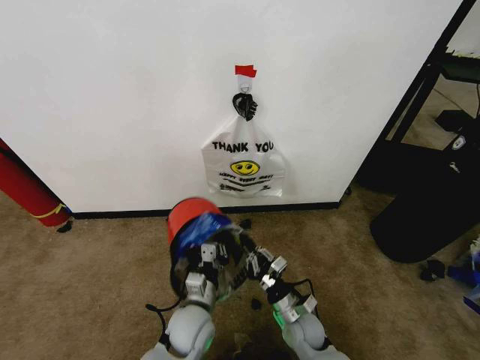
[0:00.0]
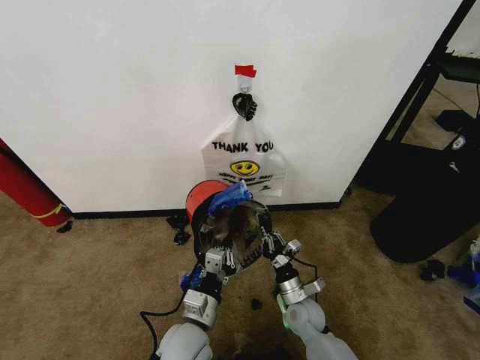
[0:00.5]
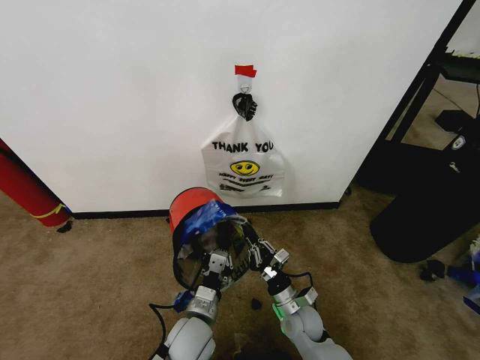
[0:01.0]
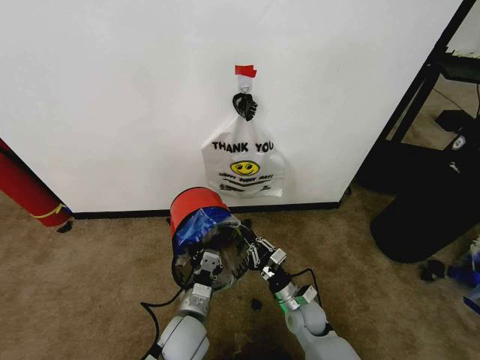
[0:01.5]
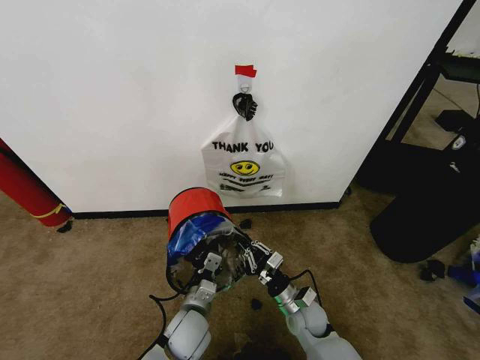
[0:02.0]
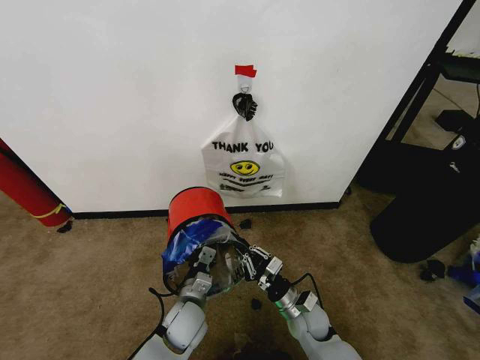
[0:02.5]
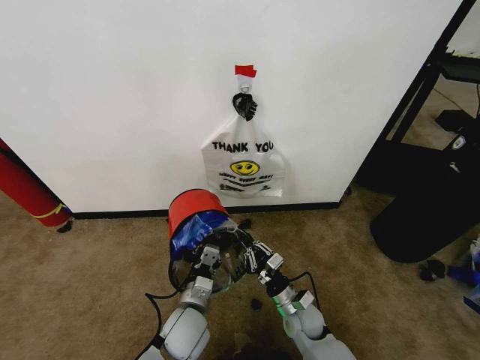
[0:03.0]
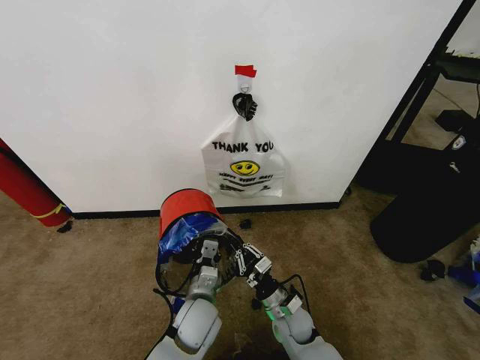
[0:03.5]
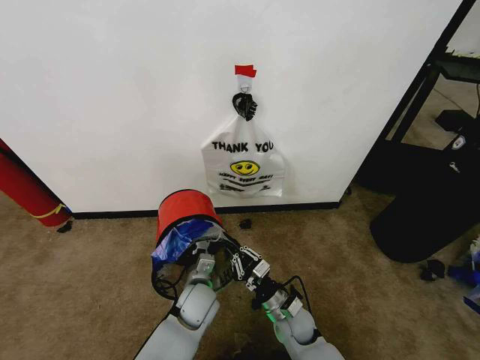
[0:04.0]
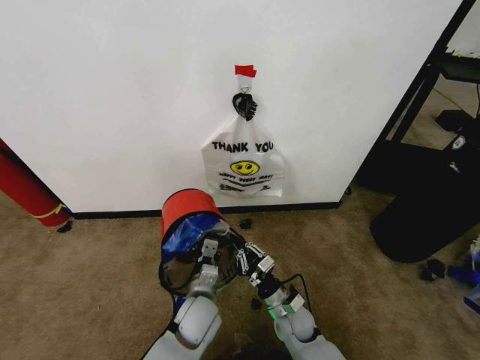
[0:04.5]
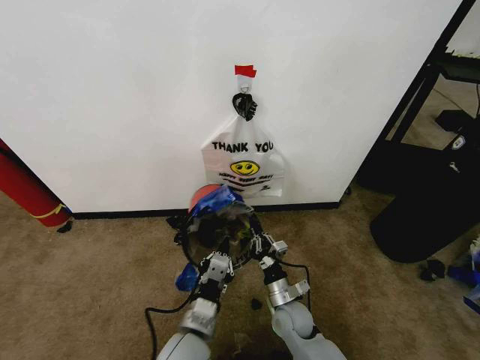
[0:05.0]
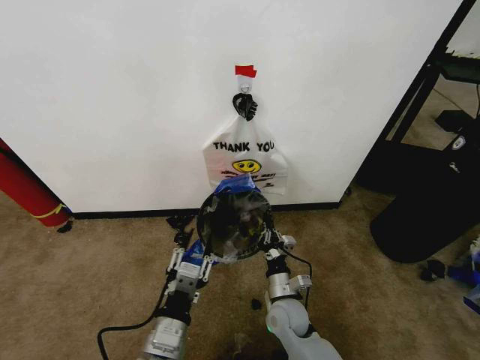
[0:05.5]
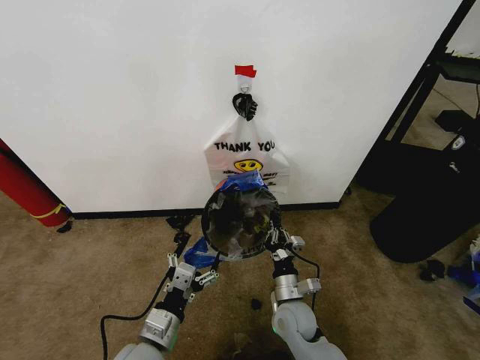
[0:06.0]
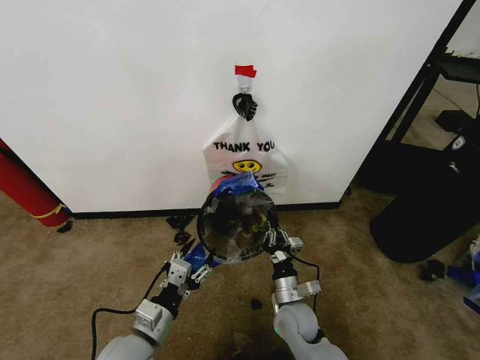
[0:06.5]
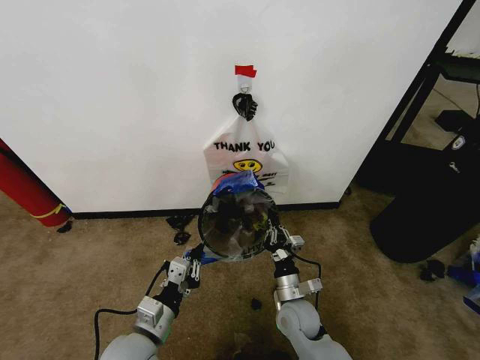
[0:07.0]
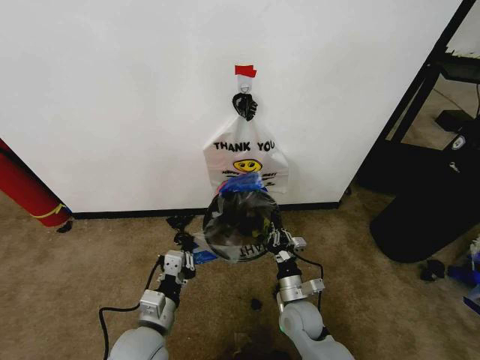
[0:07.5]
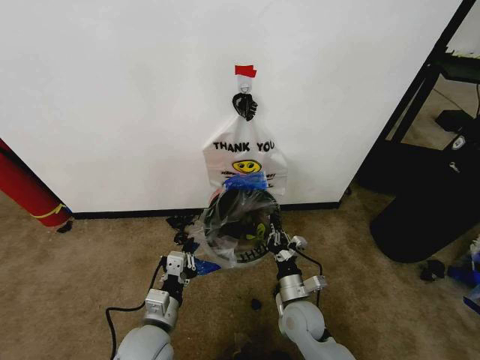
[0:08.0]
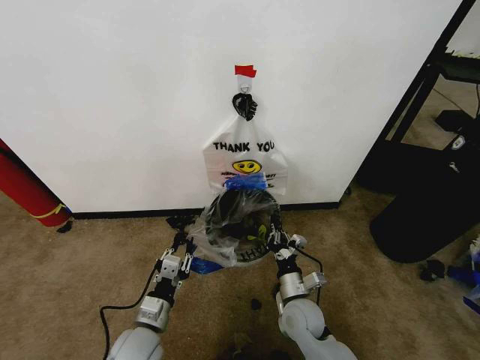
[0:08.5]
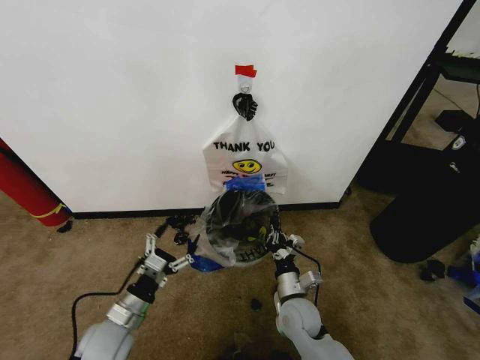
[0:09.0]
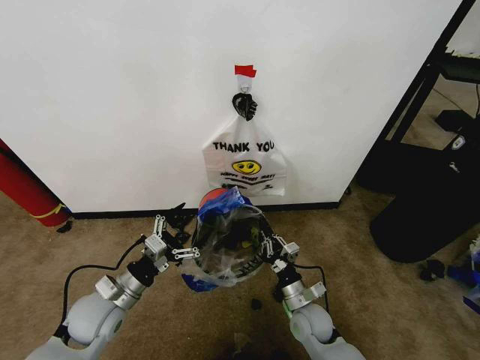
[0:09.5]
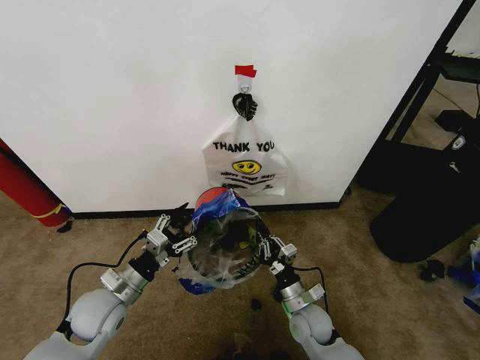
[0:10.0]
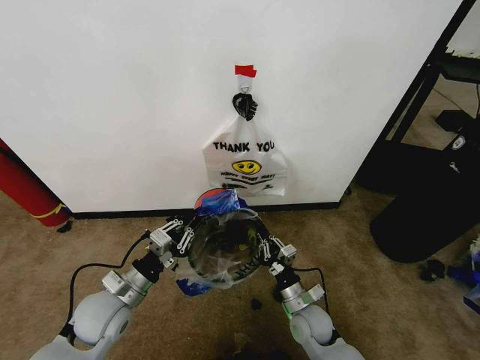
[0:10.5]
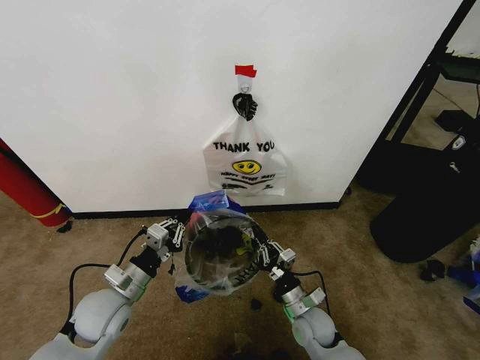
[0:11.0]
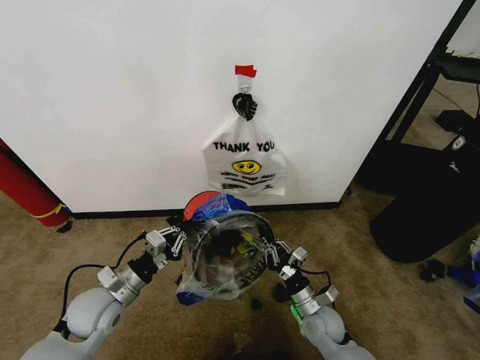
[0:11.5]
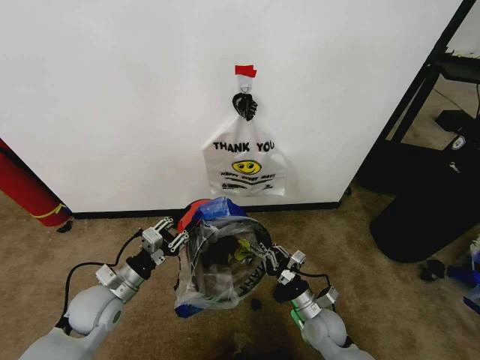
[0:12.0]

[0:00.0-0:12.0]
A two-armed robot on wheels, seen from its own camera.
Task of the whole recording: Pick up the garbage bag from the wall and place it over the trash bin.
0:02.0 to 0:04.0: The left gripper goes some 5 cm forward.
0:04.0 to 0:06.0: The left gripper goes about 20 cm backward, to the left and upward, and opens its fingers.
0:06.0 to 0:08.0: The left gripper closes.
0:08.0 to 0:10.0: The left gripper shifts roughly 10 cm to the left and forward, and opens its fingers.
0:10.0 to 0:12.0: The left gripper closes, then opens again.

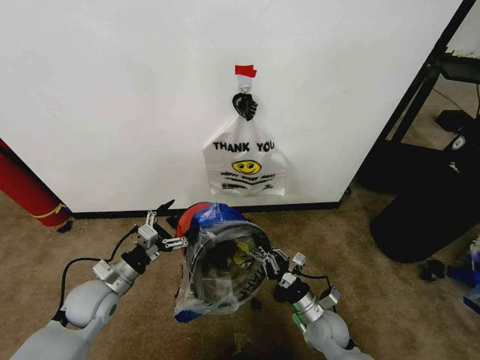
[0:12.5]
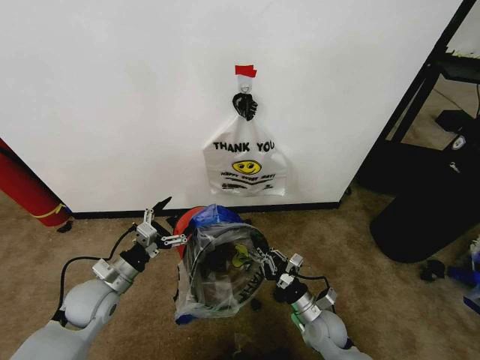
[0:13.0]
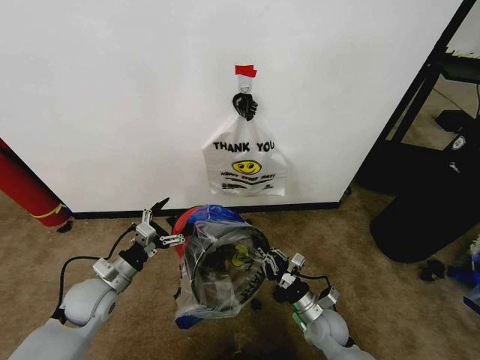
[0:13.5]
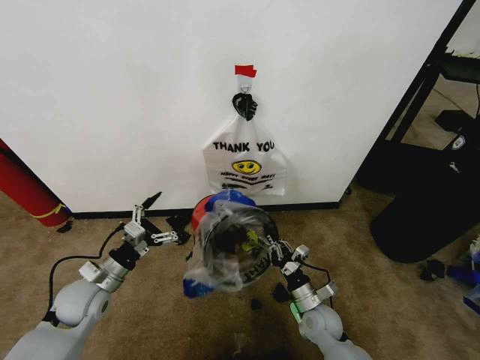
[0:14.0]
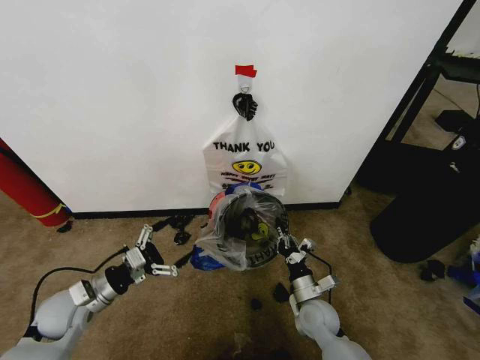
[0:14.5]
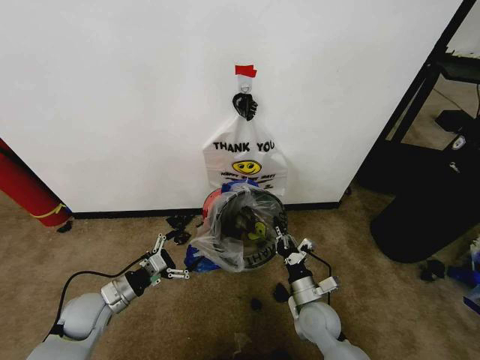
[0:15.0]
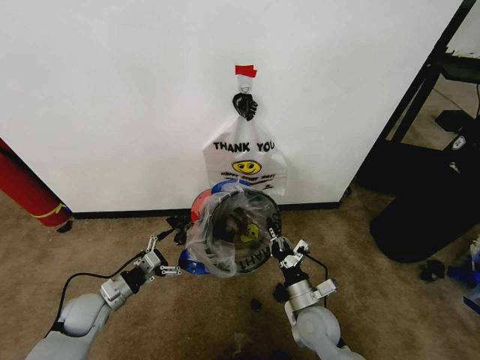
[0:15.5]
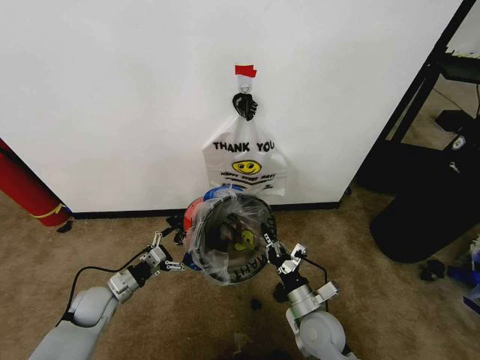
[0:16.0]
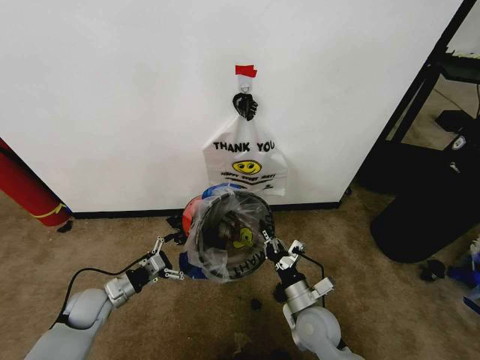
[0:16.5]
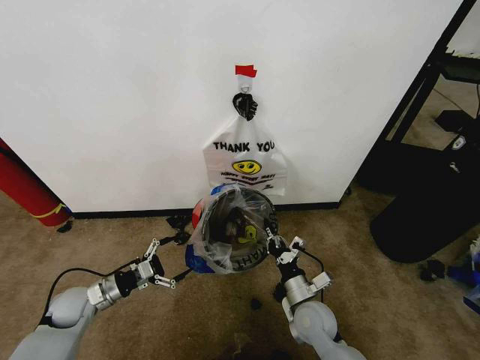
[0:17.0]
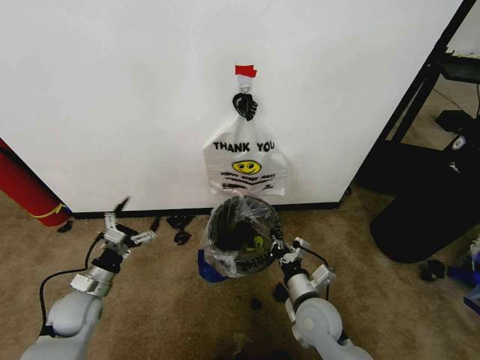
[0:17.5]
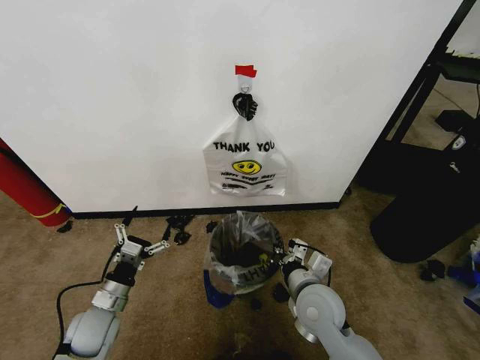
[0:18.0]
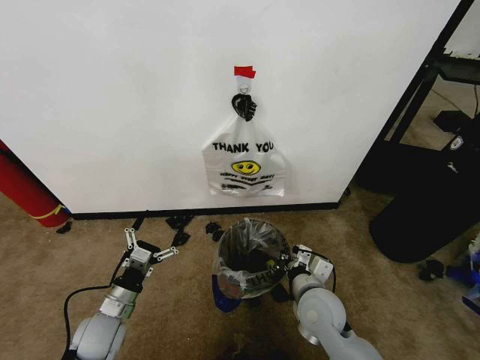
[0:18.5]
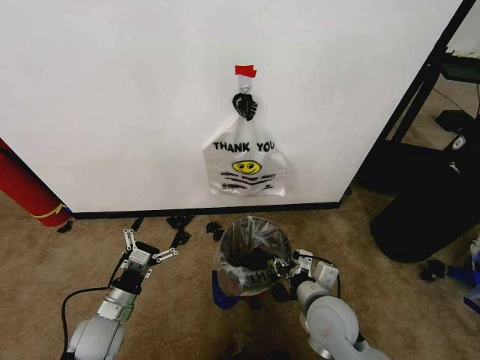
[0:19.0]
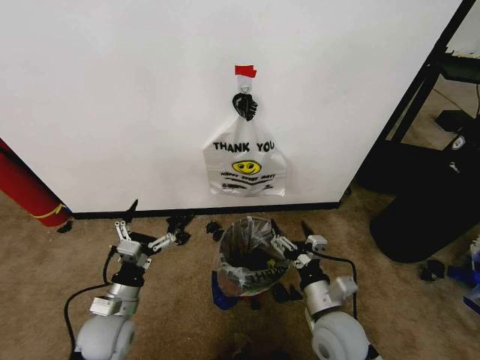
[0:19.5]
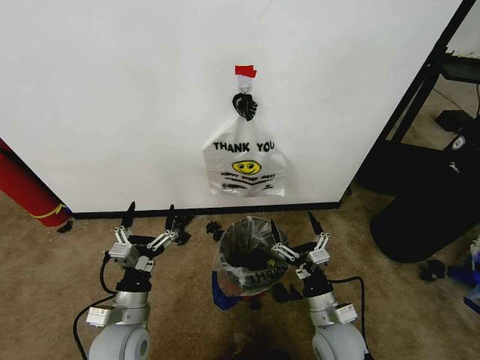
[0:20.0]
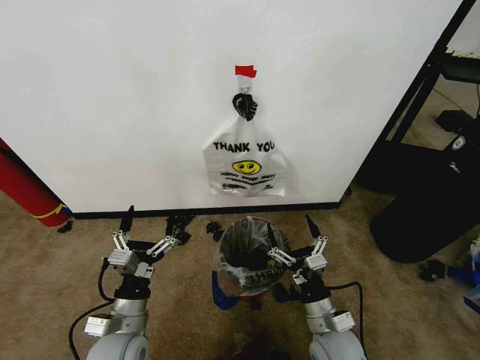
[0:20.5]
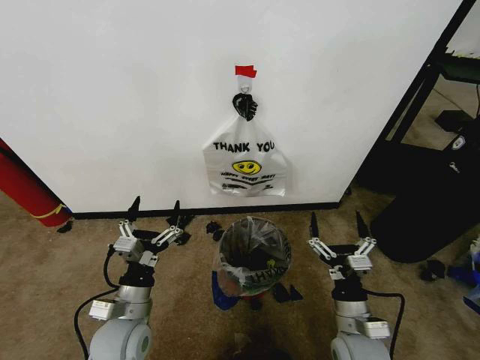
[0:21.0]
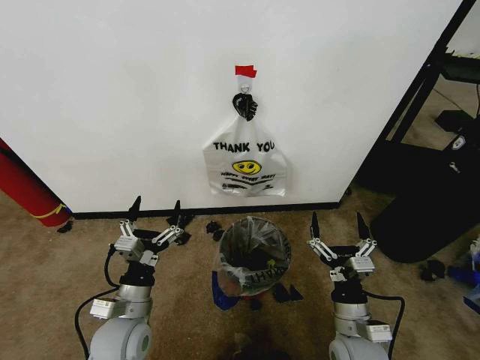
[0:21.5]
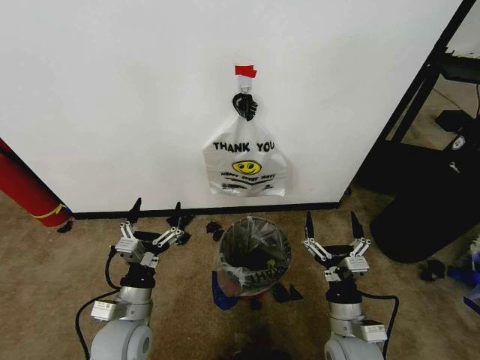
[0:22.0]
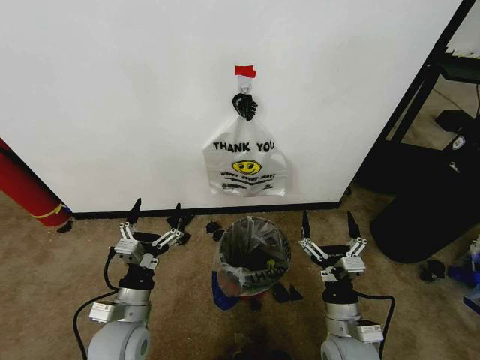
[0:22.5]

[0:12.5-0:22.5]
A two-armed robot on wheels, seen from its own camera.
Task of the whole recording: Pick up the garbage bag from the wall and place it over the trash bin.
0:14.5 to 0:16.5: The left gripper heads downward, covering roughly 10 cm; the right gripper changes place by approximately 5 cm.
0:16.5 to 0:18.5: The left gripper heads to the right and backward, covering roughly 10 cm; the right gripper goes roughly 5 cm upward.
0:18.5 to 0:20.5: The left gripper travels to the right by about 5 cm; the right gripper moves backward, roughly 5 cm, and opens.
0:20.5 to 0:22.5: There are only small adjustments of the grippers.

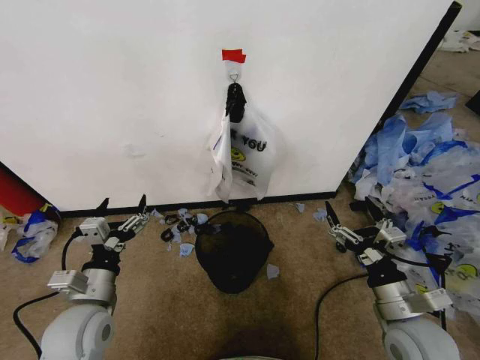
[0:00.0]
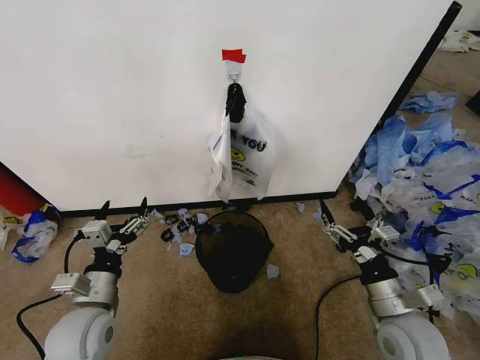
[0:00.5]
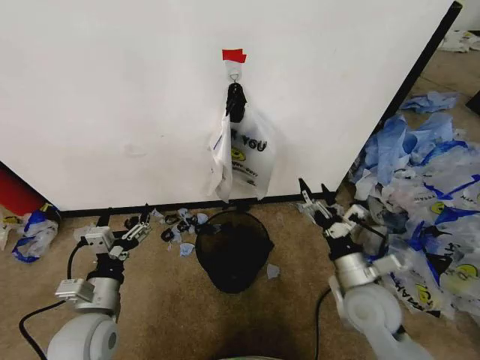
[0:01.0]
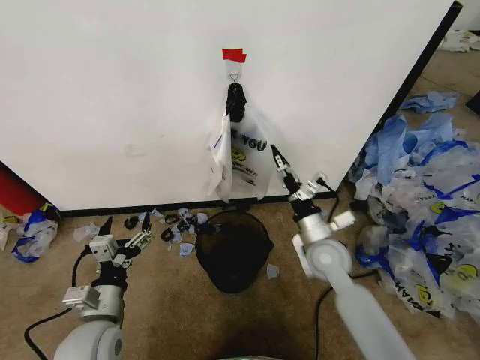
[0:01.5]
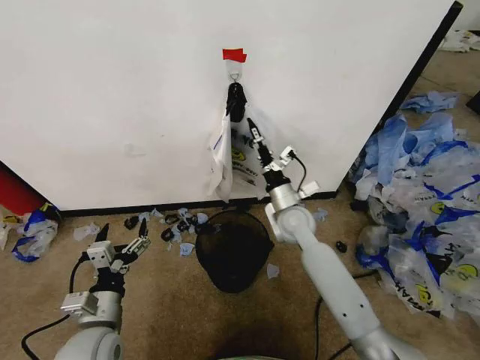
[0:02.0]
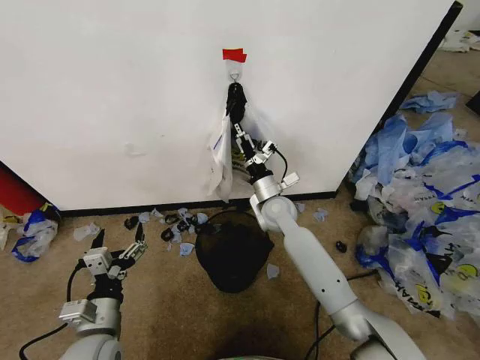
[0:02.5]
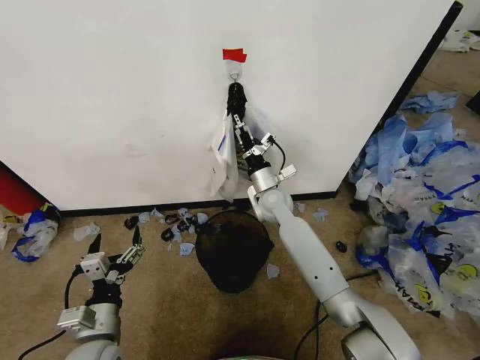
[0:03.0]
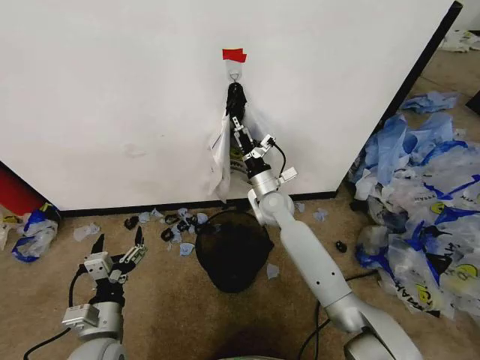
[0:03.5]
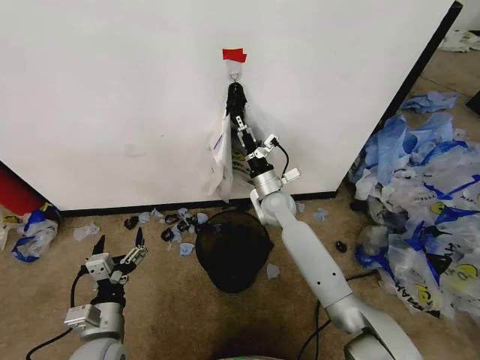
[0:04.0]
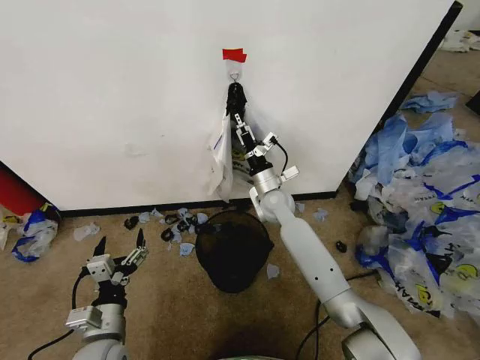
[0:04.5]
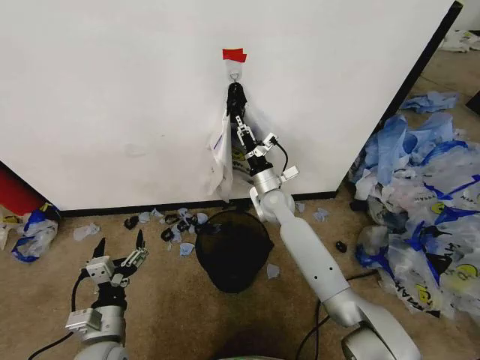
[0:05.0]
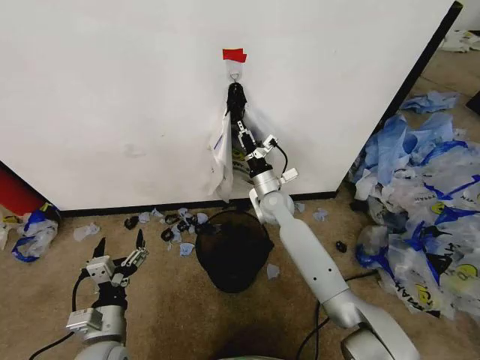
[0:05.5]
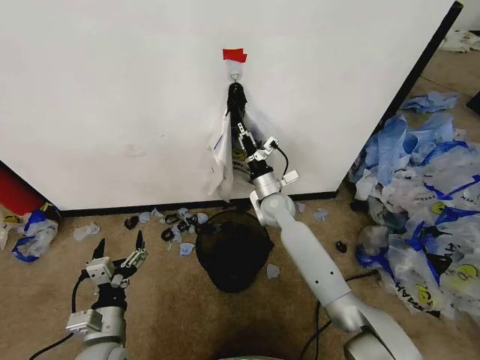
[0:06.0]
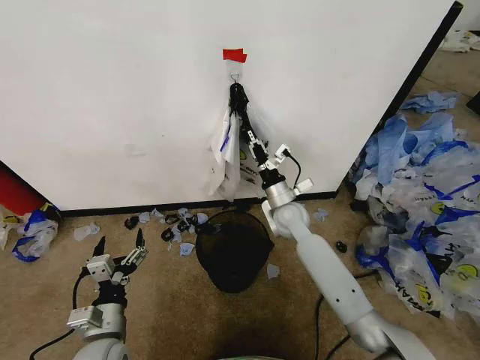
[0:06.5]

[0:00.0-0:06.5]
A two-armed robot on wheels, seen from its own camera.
Task of the whole recording: Pick up the garbage bag from the wall and place it over the trash bin.
0:02.0 to 0:04.5: The right gripper shifts some 5 cm forward.
0:04.5 to 0:06.5: The right gripper changes place by approximately 5 cm, and closes up.
